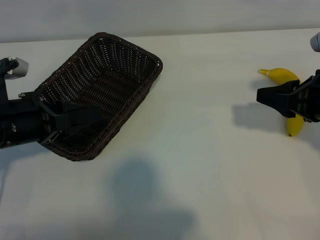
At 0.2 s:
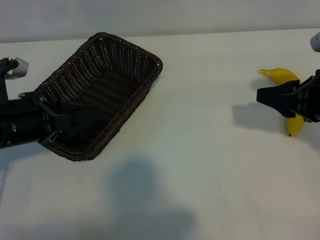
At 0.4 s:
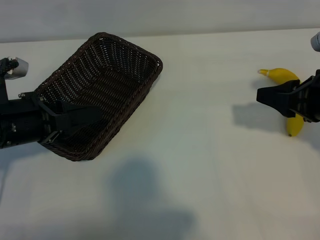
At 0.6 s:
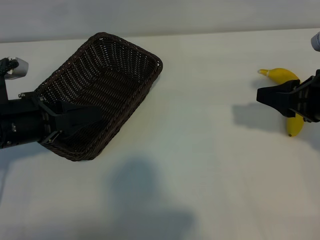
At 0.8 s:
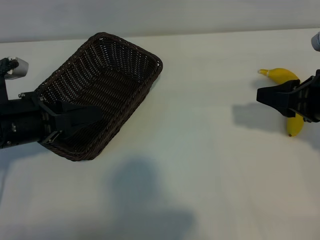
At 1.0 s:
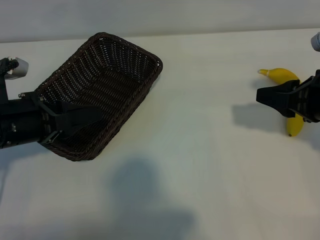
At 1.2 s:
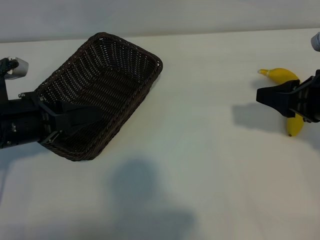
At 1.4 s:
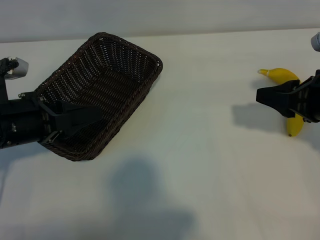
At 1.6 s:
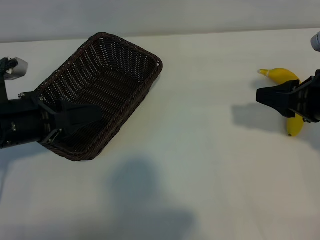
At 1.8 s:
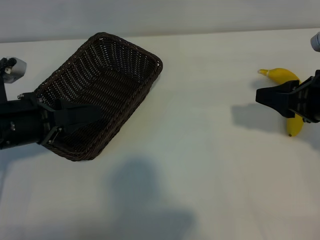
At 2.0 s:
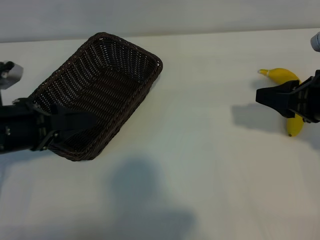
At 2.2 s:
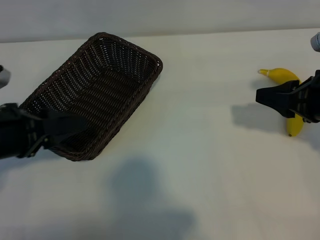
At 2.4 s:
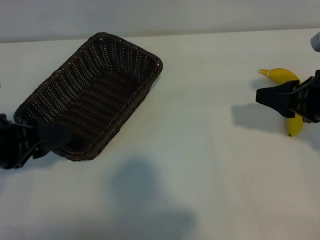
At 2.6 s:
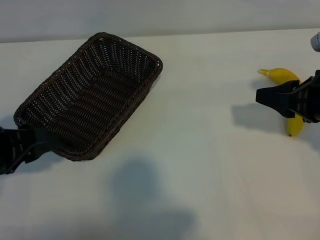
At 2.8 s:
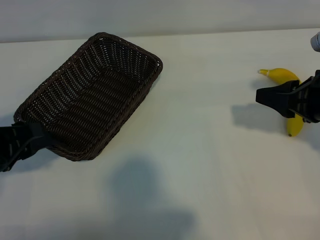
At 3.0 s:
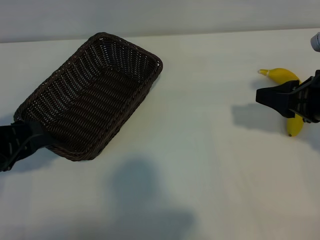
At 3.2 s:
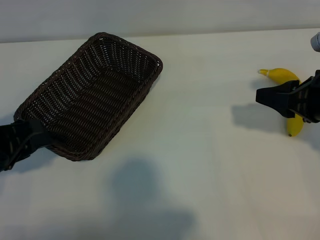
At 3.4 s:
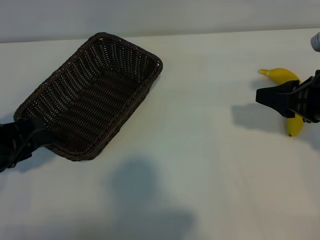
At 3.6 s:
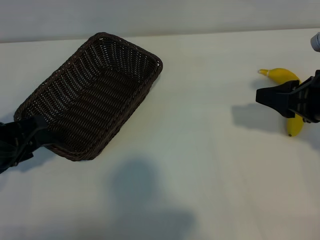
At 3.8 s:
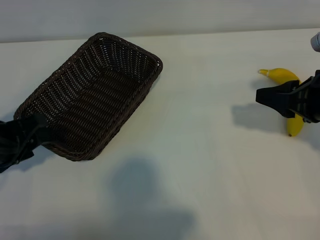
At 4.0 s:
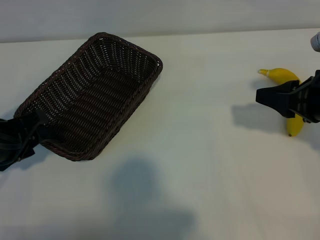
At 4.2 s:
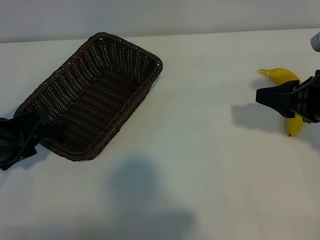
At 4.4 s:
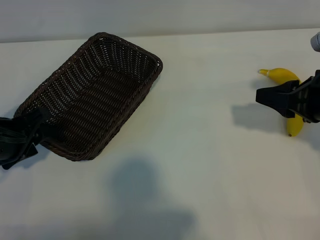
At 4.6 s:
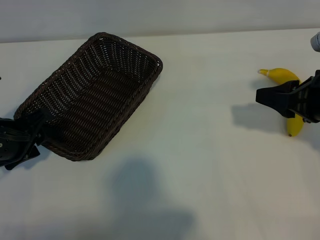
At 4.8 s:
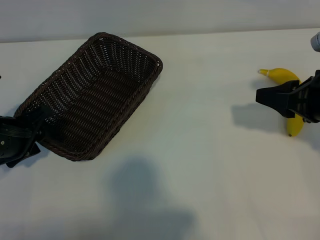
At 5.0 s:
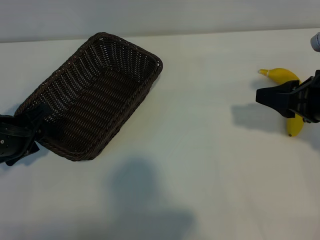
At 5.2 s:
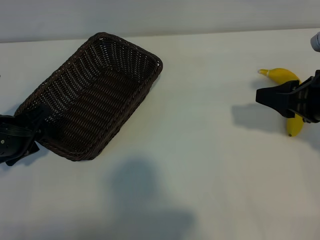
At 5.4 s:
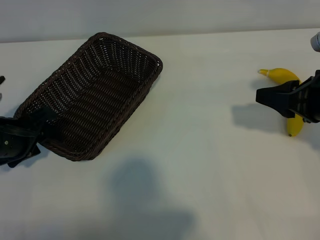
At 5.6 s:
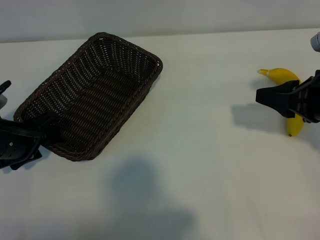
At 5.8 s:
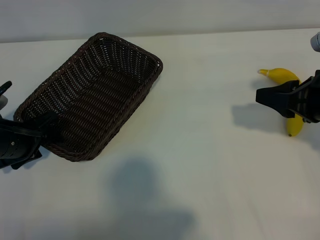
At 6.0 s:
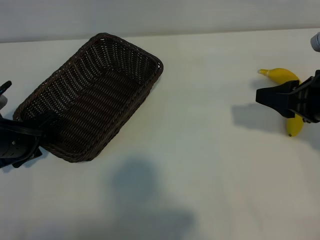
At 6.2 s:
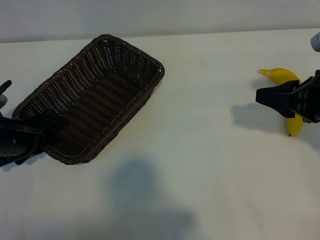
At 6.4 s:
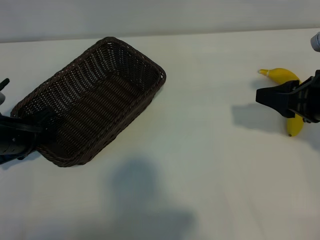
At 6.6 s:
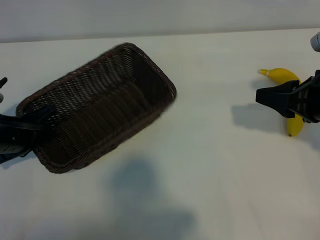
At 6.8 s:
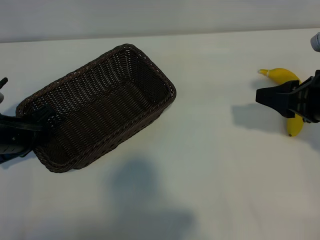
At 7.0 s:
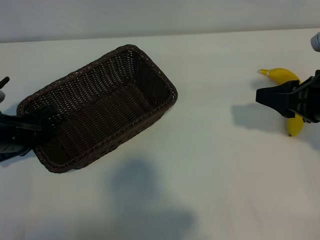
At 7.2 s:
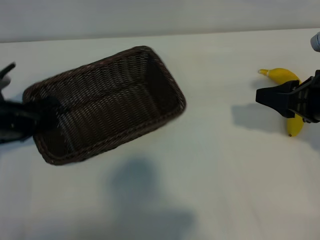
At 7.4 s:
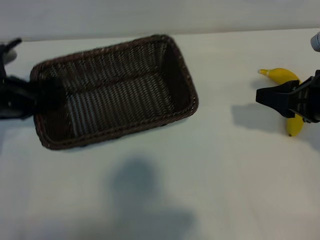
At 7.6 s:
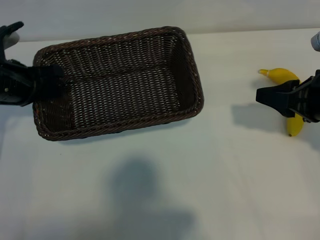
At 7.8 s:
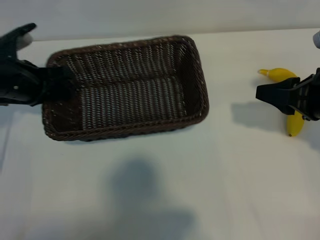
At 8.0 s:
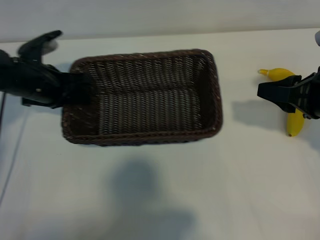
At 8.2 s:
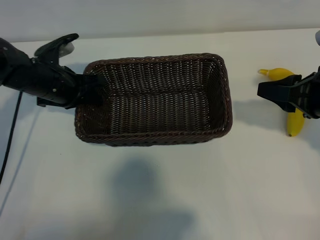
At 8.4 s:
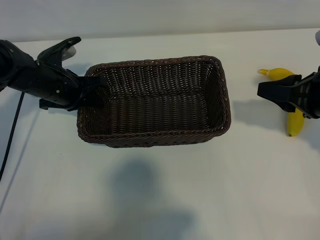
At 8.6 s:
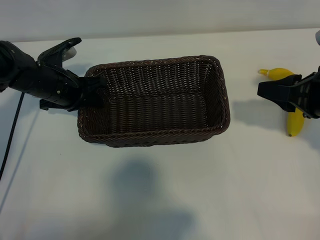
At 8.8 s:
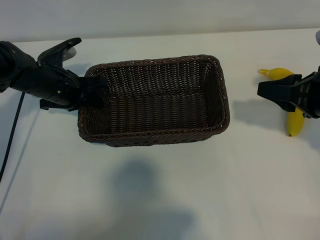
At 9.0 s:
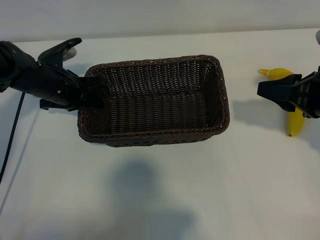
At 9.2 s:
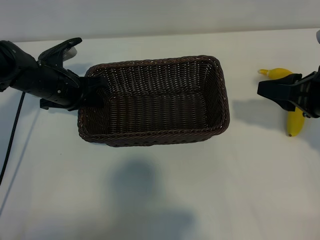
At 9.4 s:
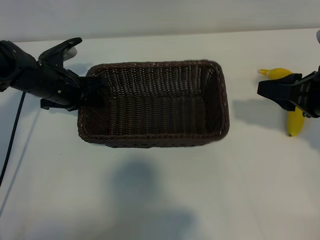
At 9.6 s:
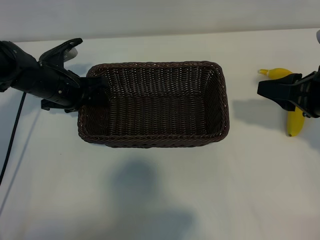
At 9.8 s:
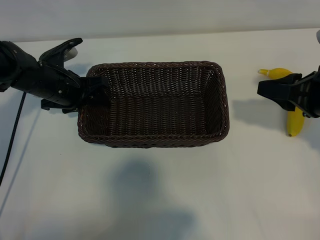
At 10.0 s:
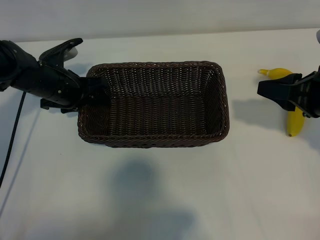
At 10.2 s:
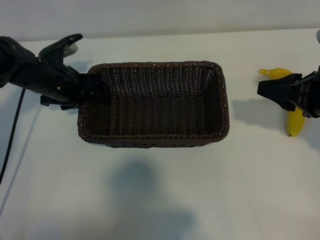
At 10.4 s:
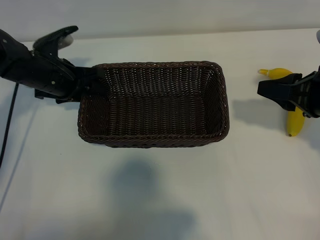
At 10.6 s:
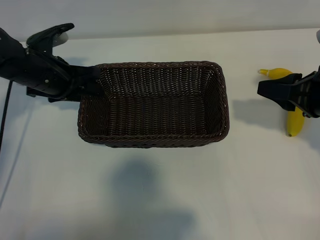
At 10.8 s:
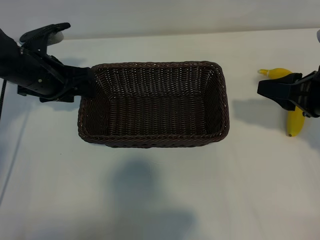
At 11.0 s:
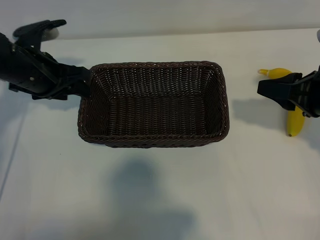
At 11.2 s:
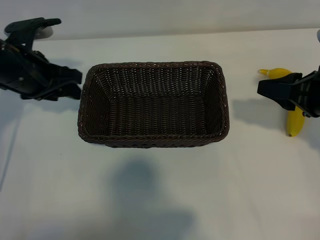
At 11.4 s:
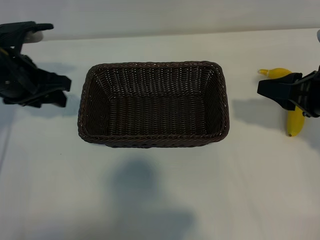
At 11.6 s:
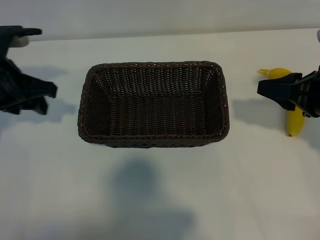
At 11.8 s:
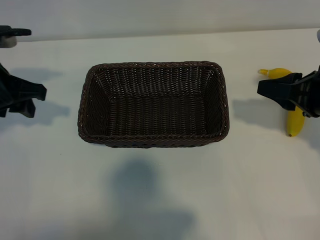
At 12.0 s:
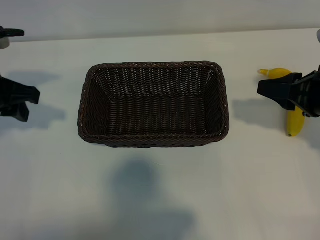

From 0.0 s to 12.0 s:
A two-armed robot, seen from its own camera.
Task of the whole recording: pick up the banana and put it into the basket.
Step, from 1.6 s to 6.8 s: Grasp the basket with the left gripper.
Step, from 7.0 s to 10.8 s: Place the basket in the center of the table with the left gripper.

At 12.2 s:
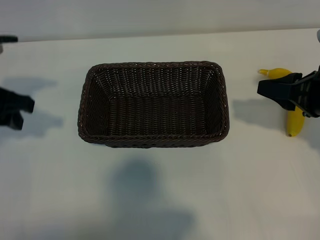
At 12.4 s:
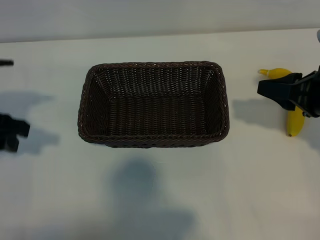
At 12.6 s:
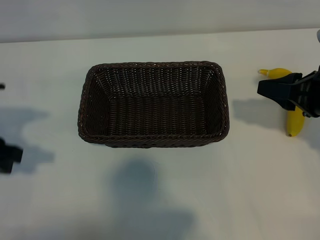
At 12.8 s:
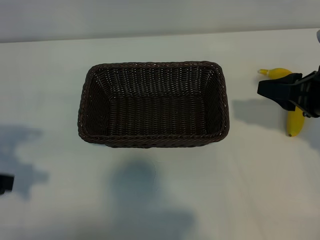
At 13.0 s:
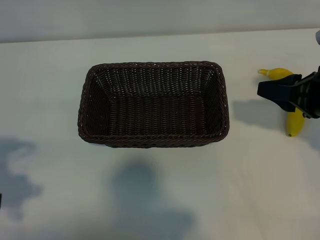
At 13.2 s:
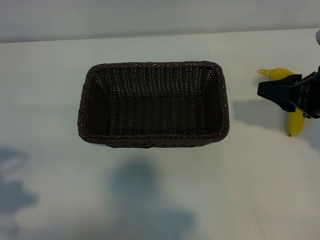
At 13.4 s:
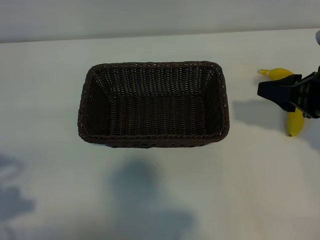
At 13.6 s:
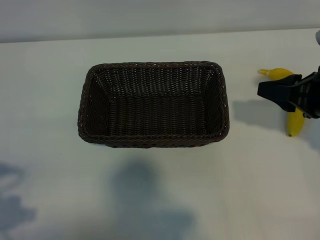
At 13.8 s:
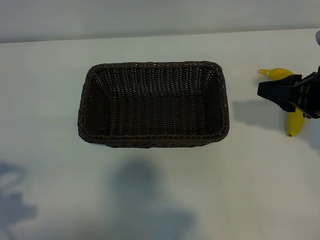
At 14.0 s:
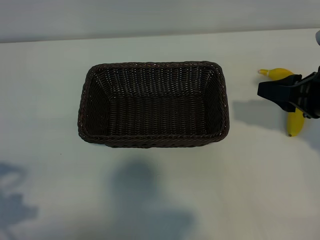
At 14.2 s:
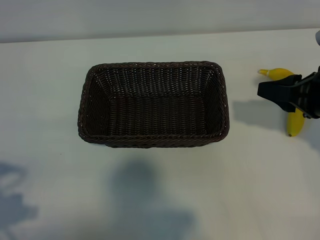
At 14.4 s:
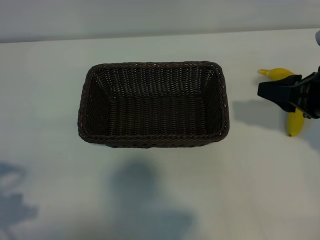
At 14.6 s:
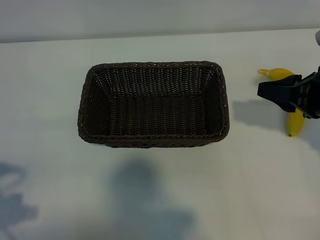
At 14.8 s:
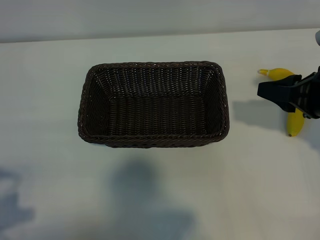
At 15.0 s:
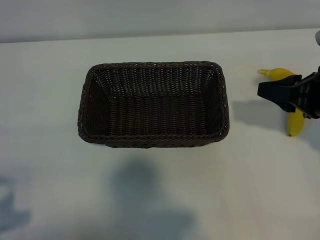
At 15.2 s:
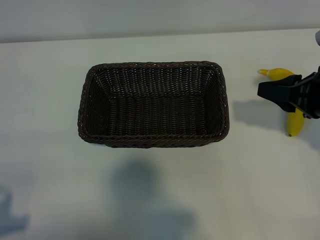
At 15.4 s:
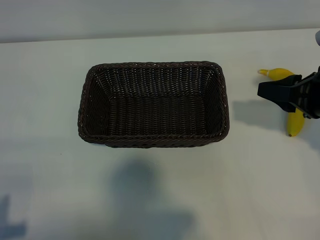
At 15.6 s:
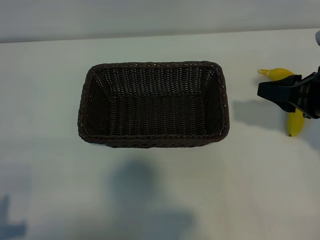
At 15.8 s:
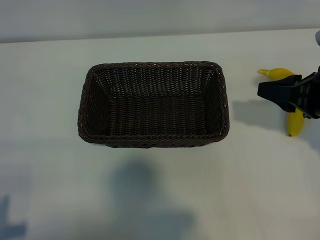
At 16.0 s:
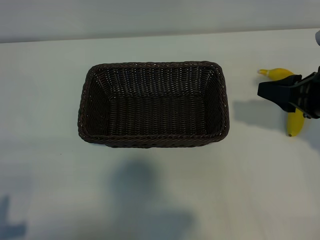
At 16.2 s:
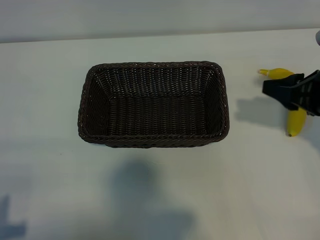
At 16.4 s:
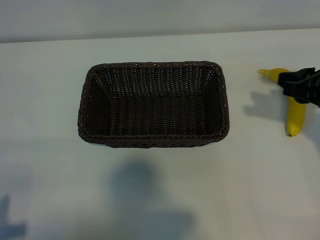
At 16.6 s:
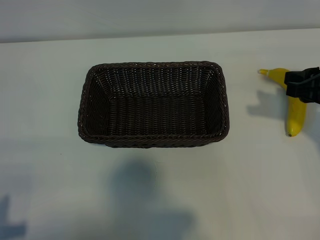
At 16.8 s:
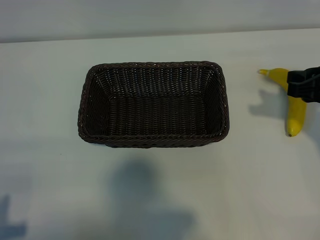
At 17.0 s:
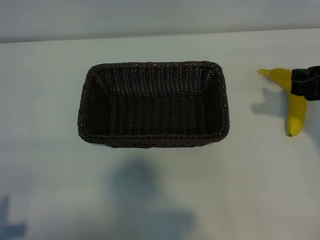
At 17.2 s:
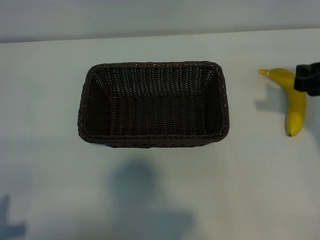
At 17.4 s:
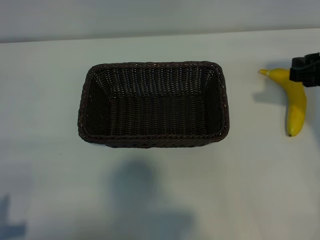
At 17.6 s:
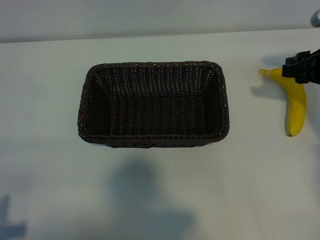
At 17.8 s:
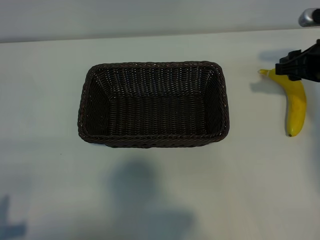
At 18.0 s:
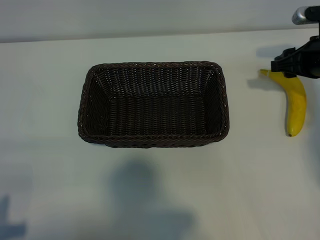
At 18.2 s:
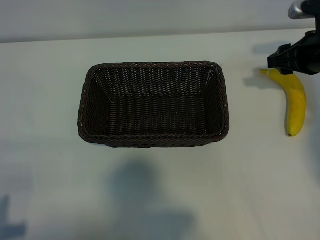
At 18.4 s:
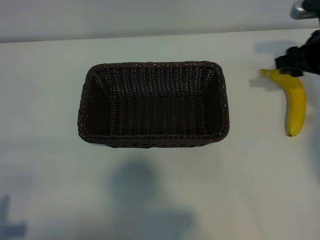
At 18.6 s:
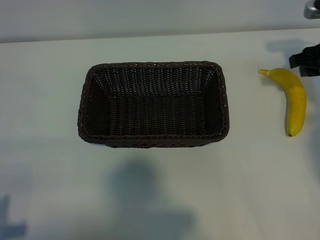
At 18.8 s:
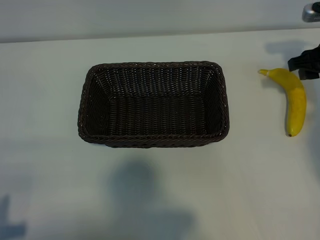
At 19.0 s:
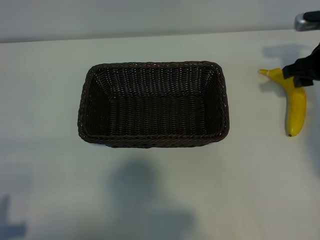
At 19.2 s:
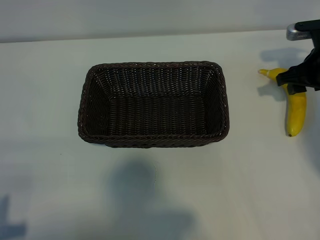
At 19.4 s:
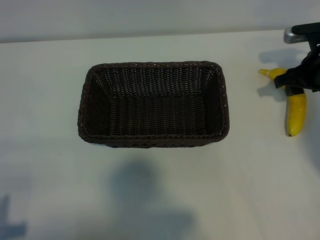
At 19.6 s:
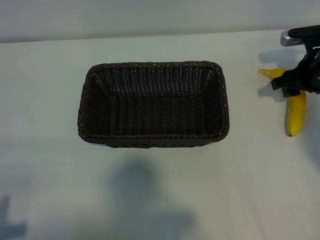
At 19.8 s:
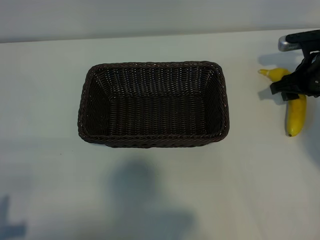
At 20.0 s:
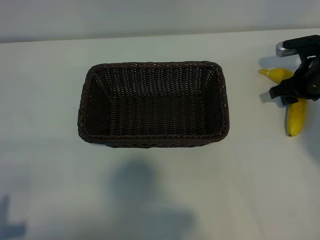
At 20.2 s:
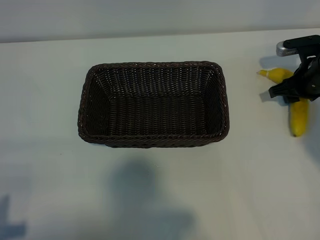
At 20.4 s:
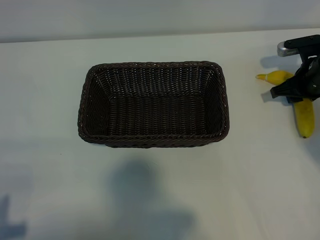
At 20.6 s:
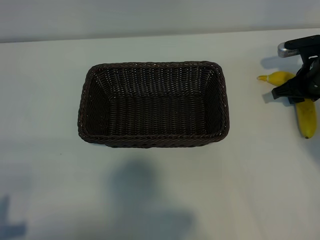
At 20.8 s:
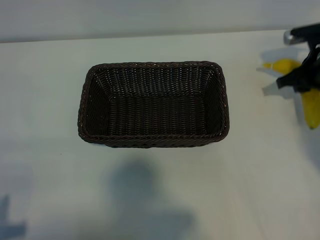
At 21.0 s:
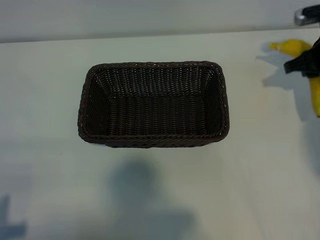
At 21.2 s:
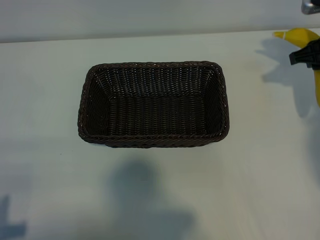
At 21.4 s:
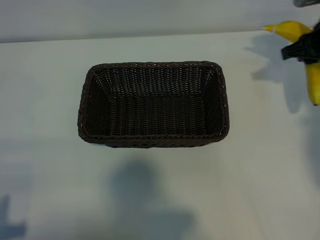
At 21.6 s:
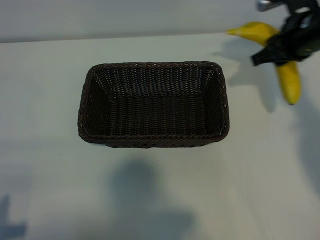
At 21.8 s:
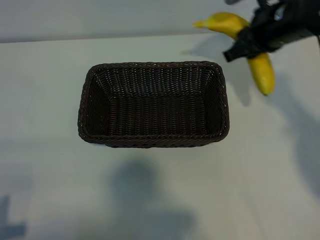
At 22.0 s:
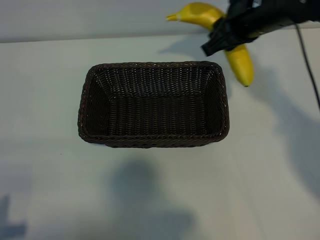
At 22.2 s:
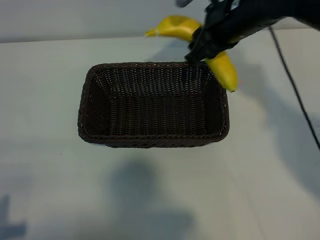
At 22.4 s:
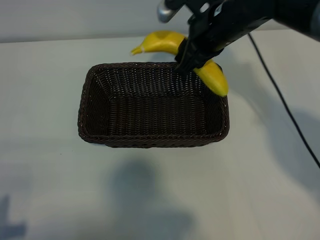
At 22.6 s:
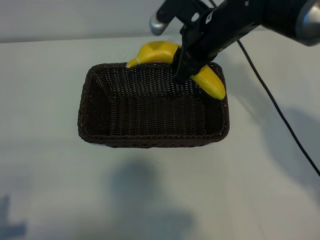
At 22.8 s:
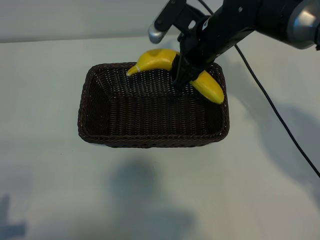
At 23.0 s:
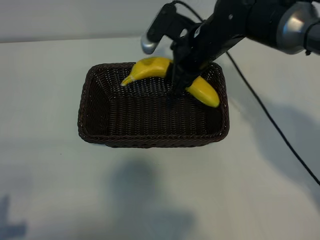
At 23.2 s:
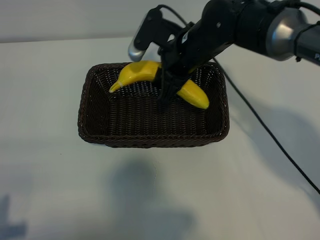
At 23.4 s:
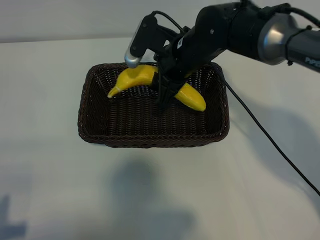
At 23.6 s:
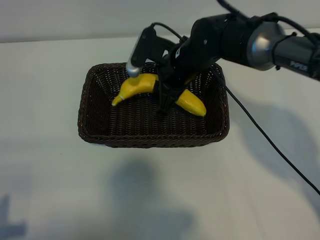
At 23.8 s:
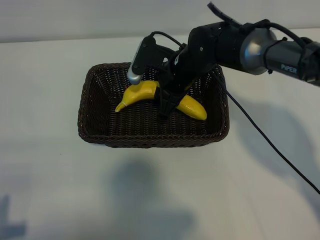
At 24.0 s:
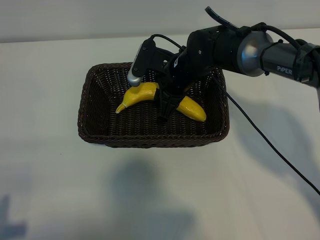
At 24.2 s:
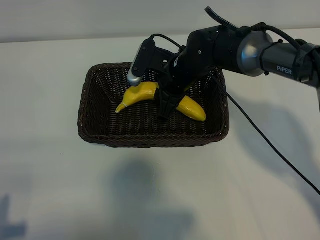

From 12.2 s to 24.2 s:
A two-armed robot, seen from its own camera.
Task of the whole recording: pick up the banana and put it into the basket.
Step, from 12.2 s to 20.2 s: Grasp the banana with right gripper.
